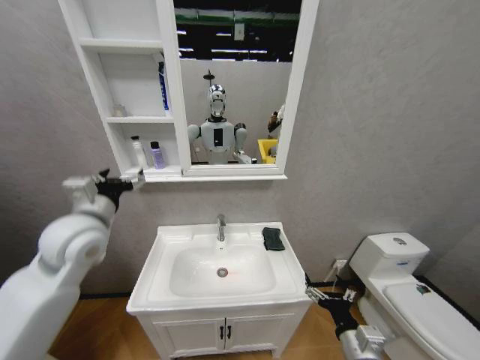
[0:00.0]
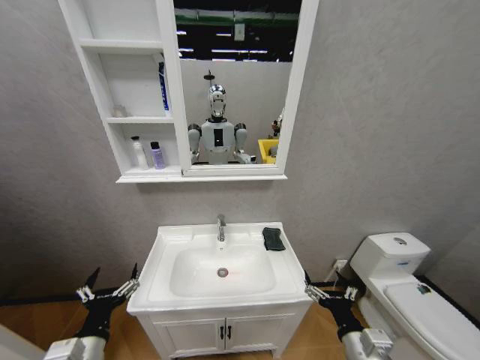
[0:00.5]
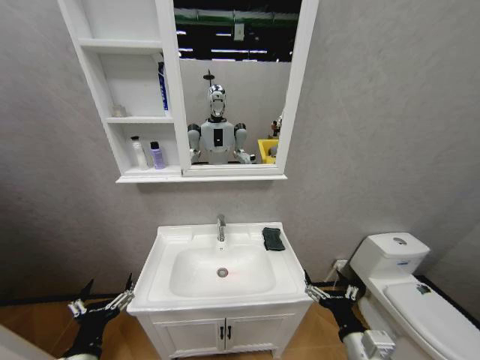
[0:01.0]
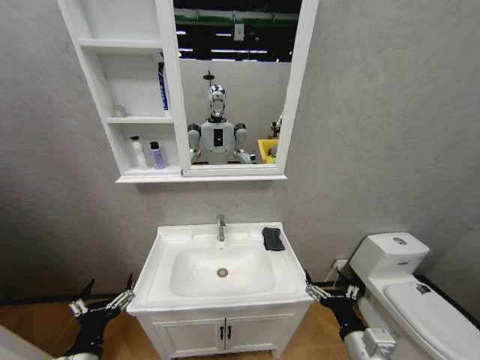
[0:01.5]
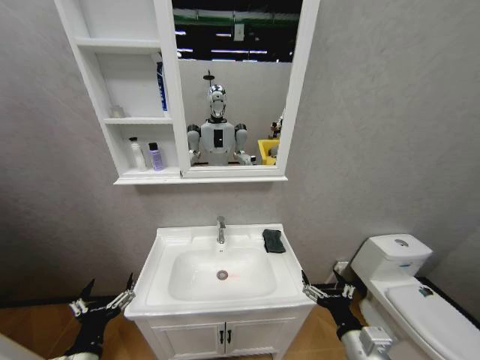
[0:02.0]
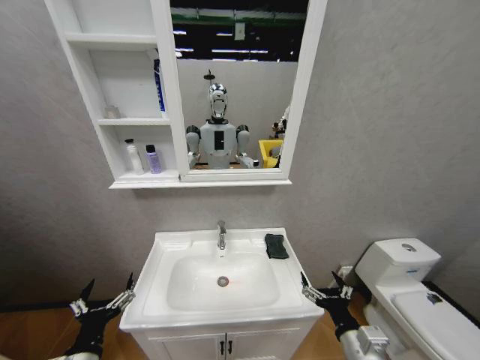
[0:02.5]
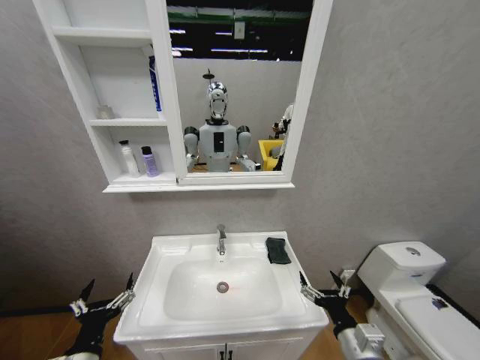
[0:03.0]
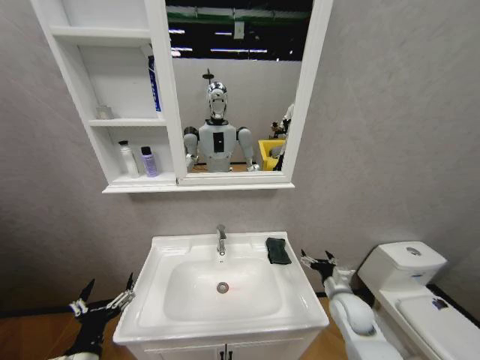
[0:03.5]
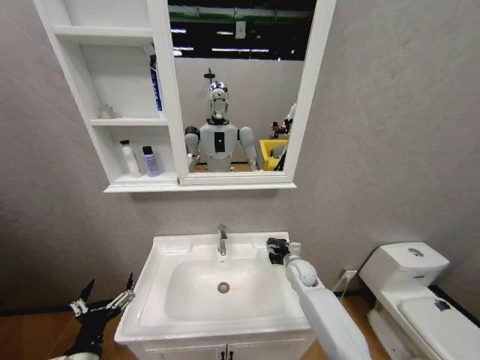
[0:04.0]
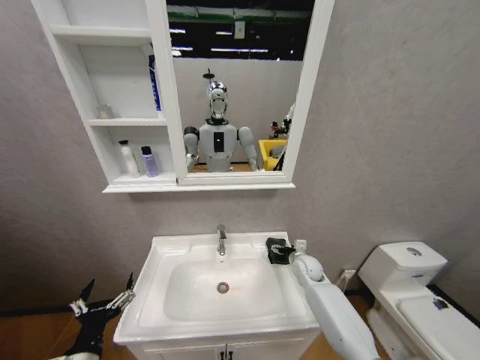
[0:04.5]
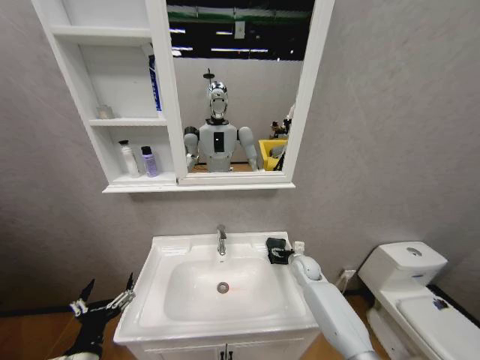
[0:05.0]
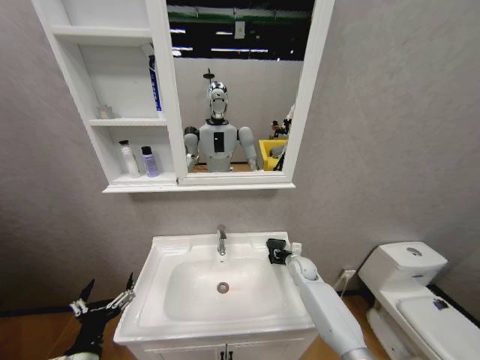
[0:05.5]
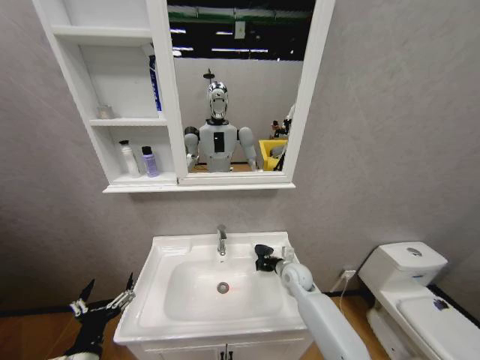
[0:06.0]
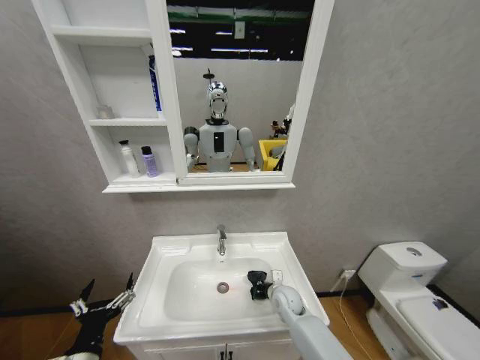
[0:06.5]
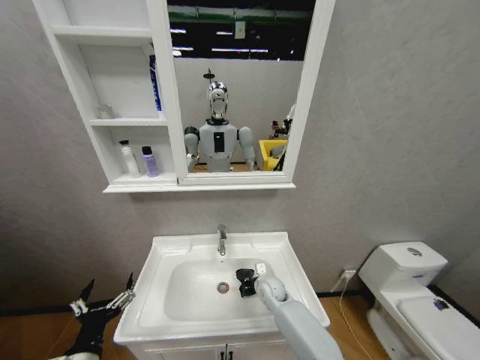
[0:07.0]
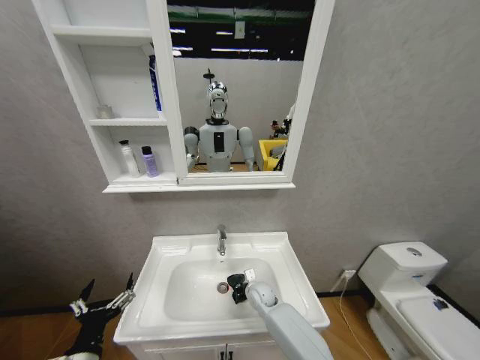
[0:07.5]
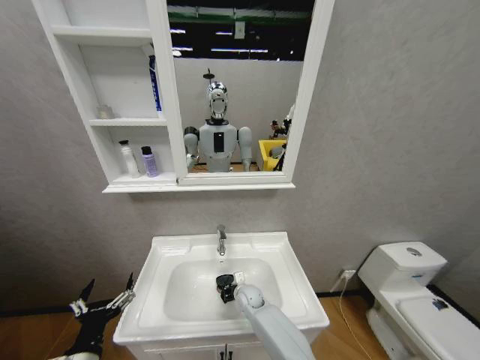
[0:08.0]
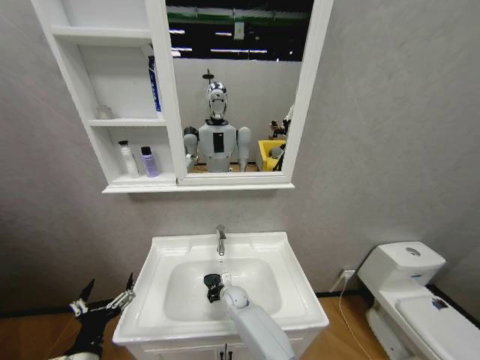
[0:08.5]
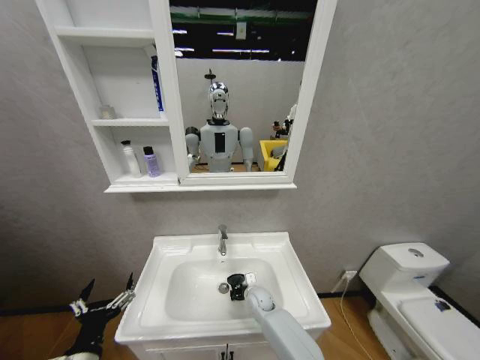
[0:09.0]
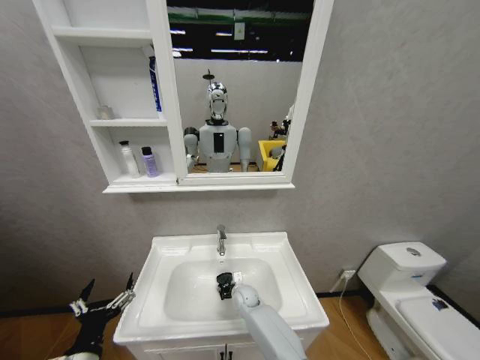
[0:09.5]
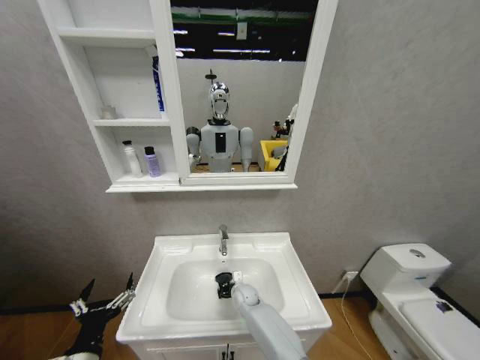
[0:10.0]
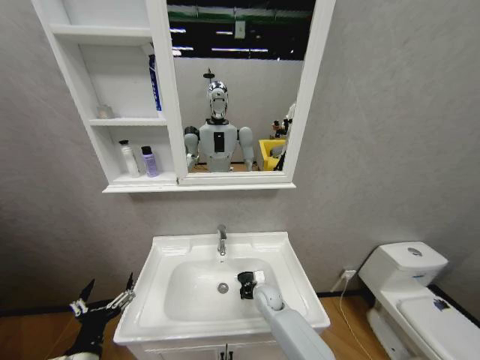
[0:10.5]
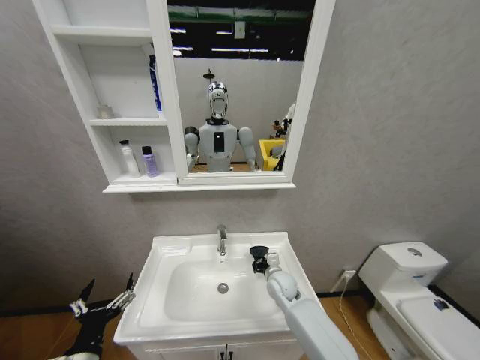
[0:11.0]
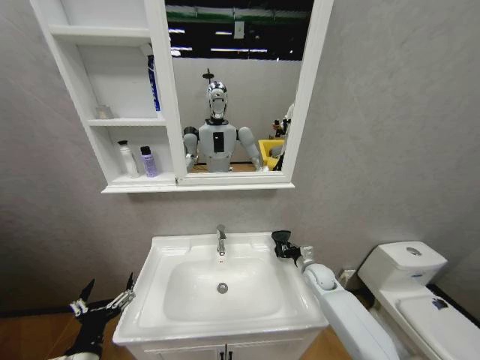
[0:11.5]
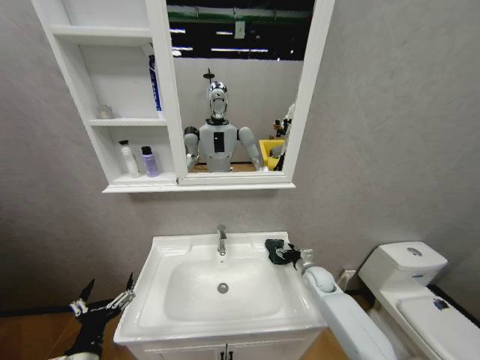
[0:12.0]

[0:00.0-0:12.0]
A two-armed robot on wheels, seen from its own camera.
Task of the whole recording: Move facial cleanser and shampoo from washbasin to cabinet, then wipe washbasin with towel.
0:00.0 to 0:02.0: The left gripper travels downward and backward by approximately 35 cm.
0:02.0 to 0:04.0: The right gripper is displaced forward by about 30 cm.
0:04.0 to 0:06.0: The right gripper closes.
0:06.0 to 0:08.0: The right gripper travels to the left and downward by roughly 20 cm.
0:08.0 to 0:10.0: The right gripper goes left and right, about 10 cm each way, reversing 2 times.
0:10.0 to 0:12.0: The right gripper goes approximately 25 cm to the right, and opens up.

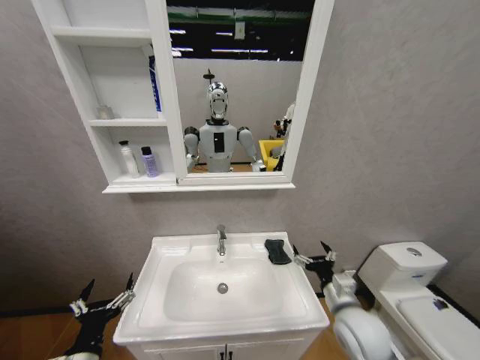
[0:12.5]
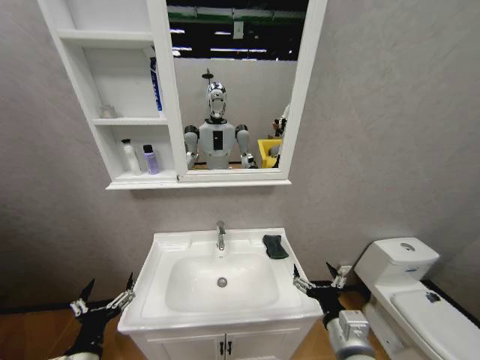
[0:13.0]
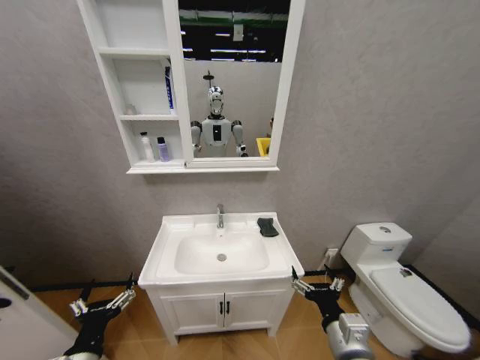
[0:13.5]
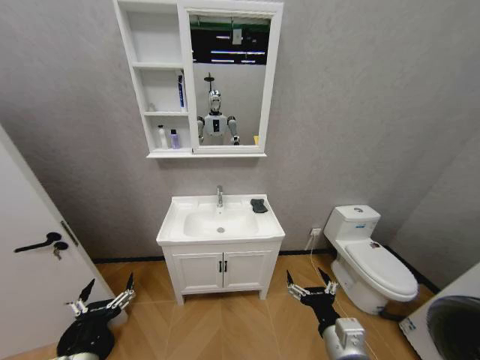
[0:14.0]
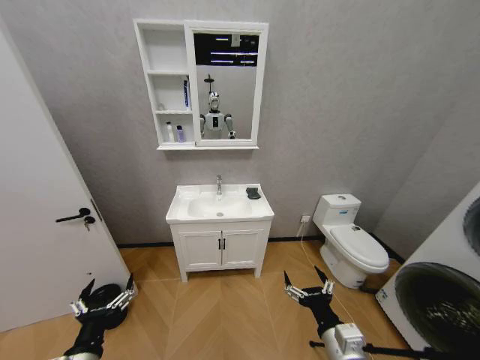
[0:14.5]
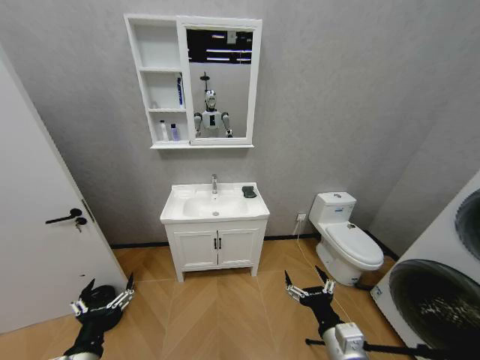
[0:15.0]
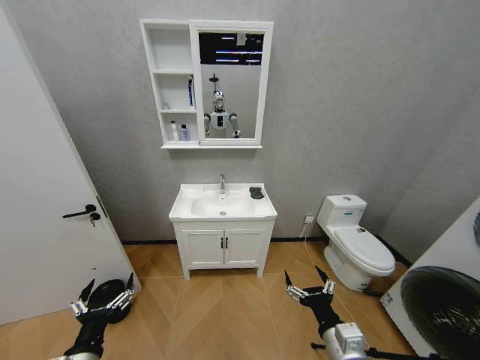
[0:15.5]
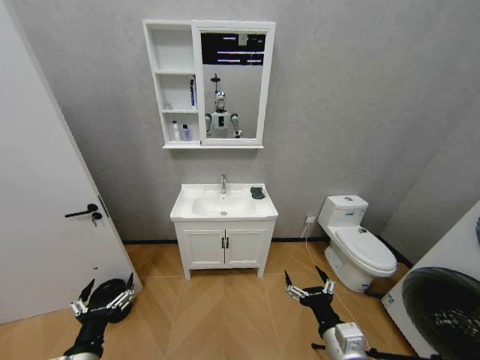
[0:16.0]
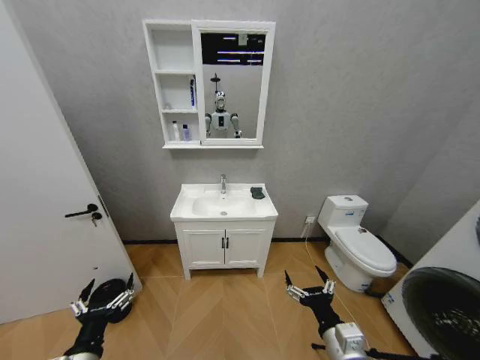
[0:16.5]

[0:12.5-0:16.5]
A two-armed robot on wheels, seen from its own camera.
Task of the whole recording: Move facial cleanser and shampoo from washbasin to cabinet, then wipe washbasin with towel.
0:12.5 to 0:14.5: The right gripper heads backward, covering some 10 cm.
0:14.5 to 0:16.5: Both grippers stay put.

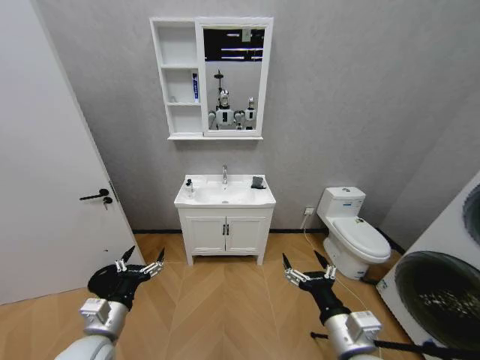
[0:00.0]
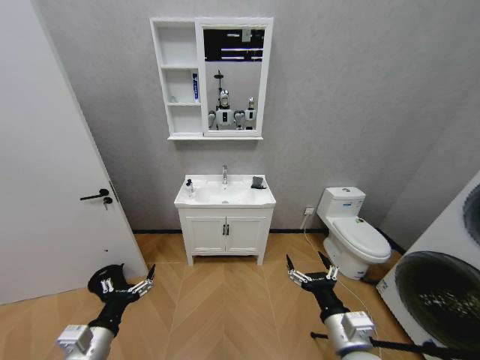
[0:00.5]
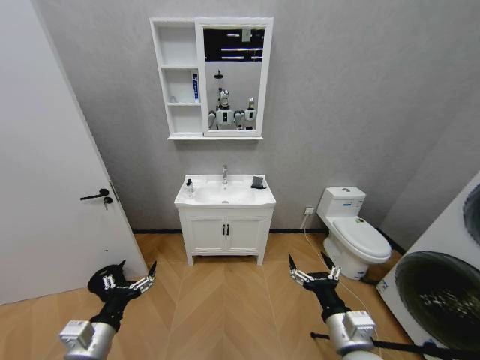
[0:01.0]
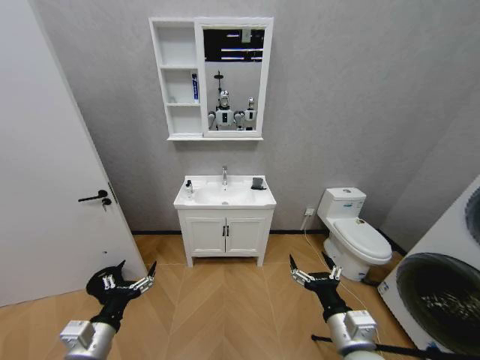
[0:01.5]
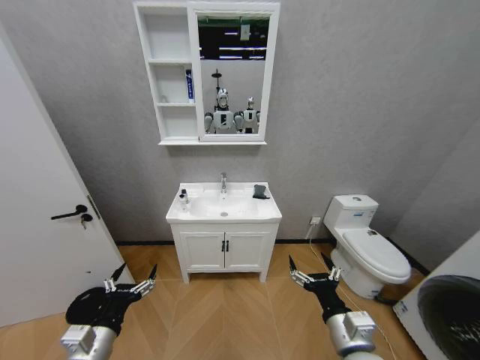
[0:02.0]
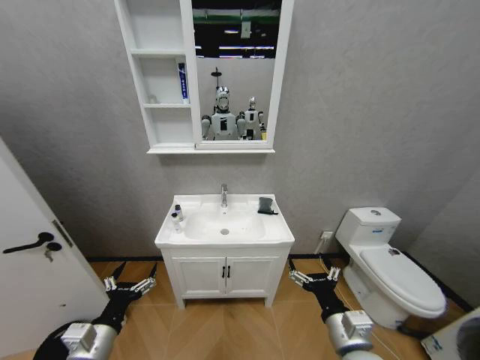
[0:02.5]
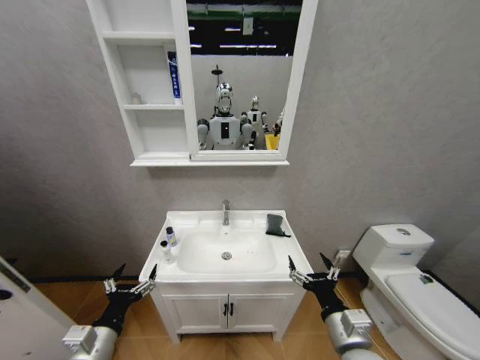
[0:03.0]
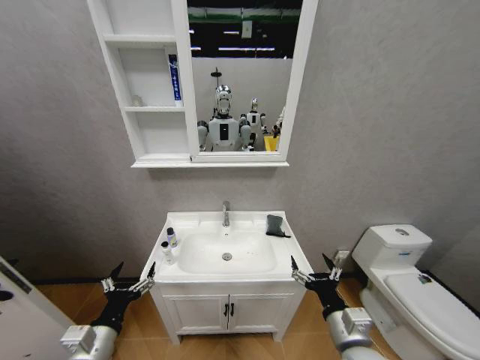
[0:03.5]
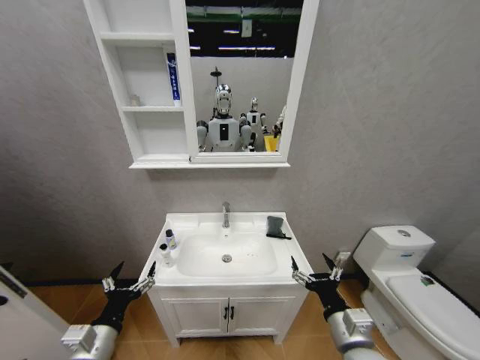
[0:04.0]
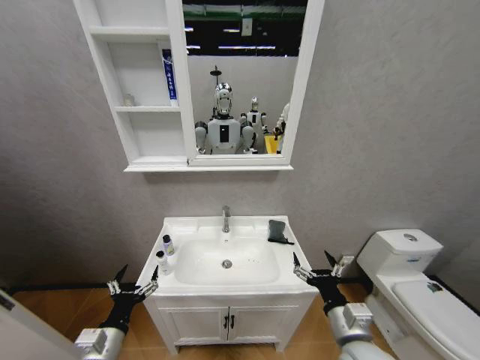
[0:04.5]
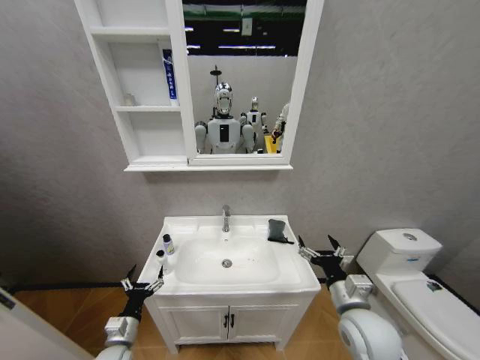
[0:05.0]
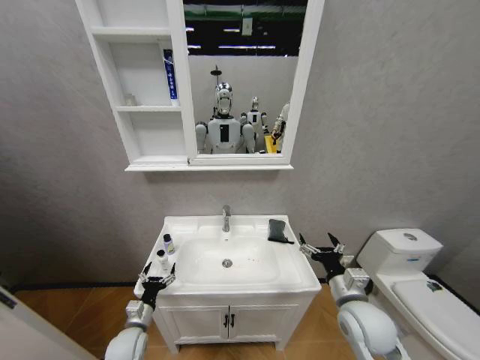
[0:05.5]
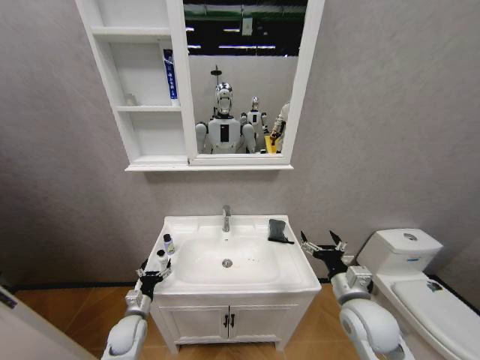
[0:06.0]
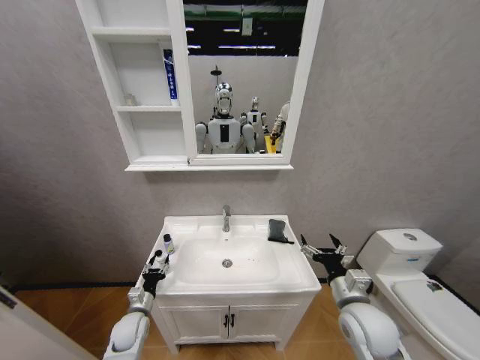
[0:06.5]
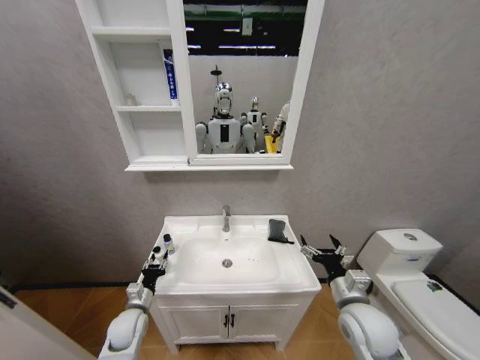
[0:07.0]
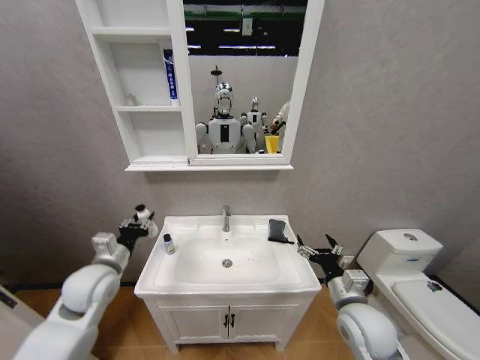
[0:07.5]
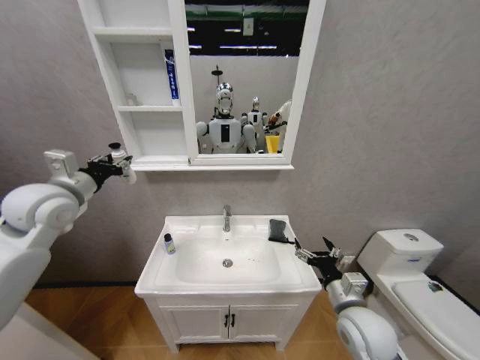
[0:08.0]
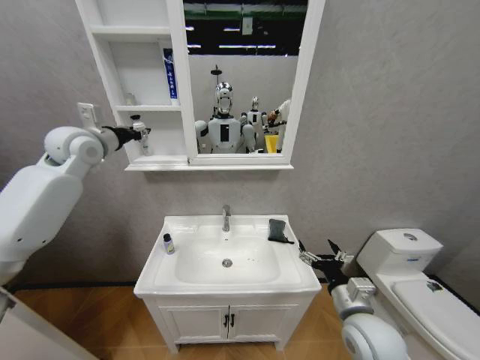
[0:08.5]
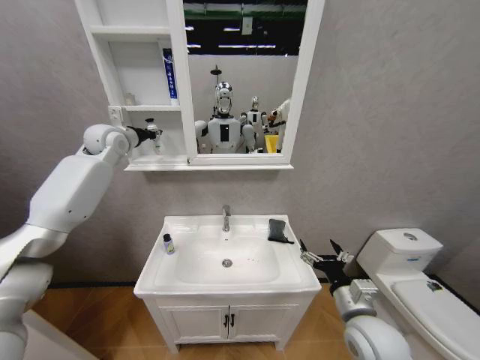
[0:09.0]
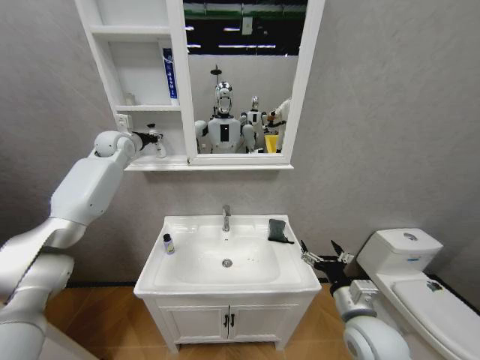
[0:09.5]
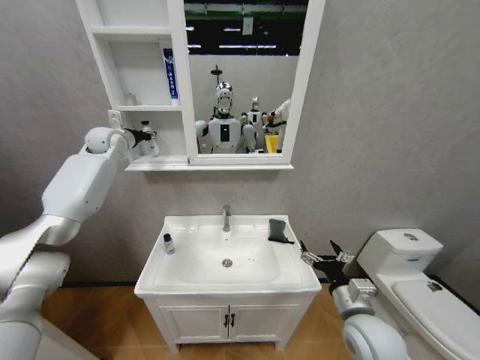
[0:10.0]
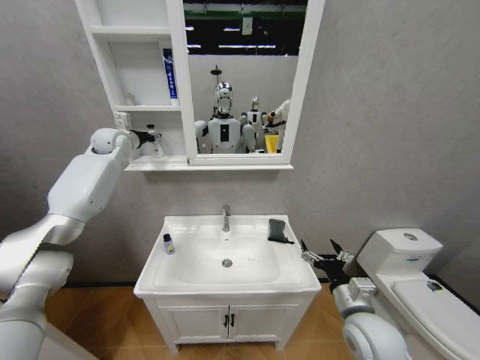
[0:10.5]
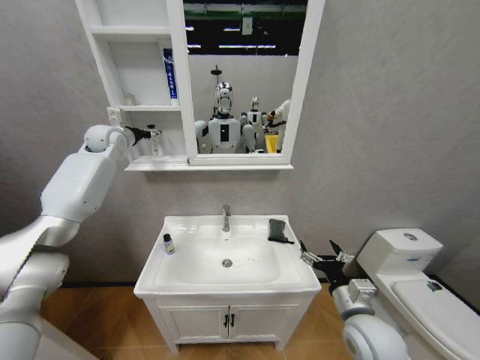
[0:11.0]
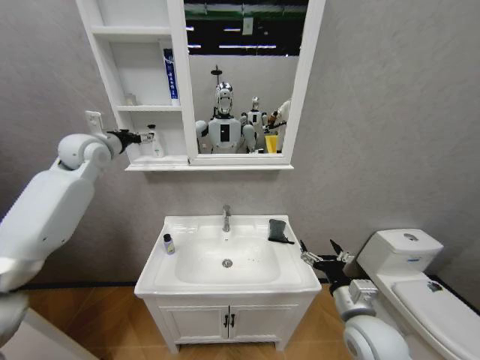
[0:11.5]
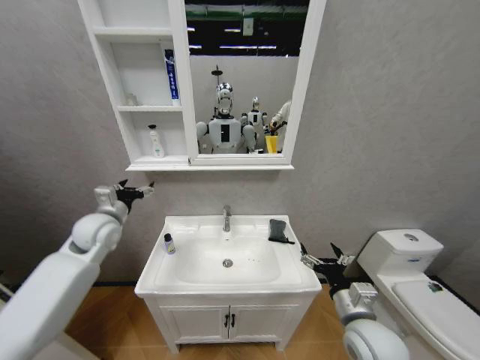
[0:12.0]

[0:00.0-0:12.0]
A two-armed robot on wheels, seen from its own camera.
Task of the whole recording: Move facial cleanser and shampoo from washbasin to cabinet, then wipe washbasin with towel.
0:04.0 to 0:06.0: The left gripper goes approximately 20 cm downward and forward; the right gripper shifts roughly 10 cm forward.
0:06.0 to 0:08.0: The left gripper goes roughly 40 cm upward, and closes up.
0:08.0 to 0:10.0: The left gripper shifts about 25 cm forward.
0:10.0 to 0:12.0: The left gripper heads backward and downward, covering approximately 30 cm, and opens.
